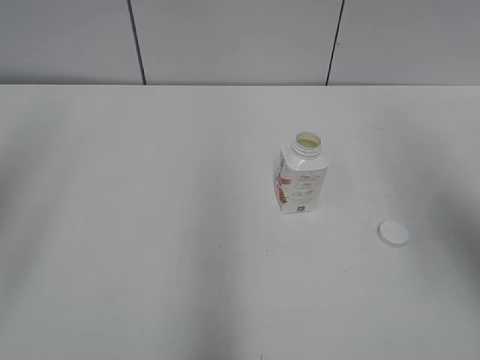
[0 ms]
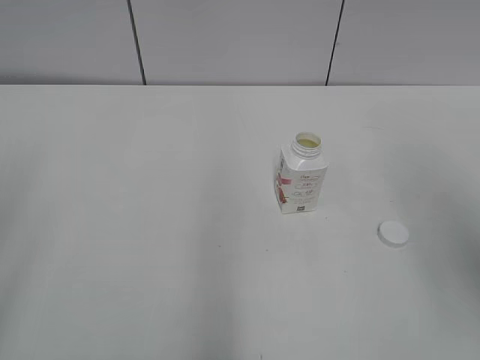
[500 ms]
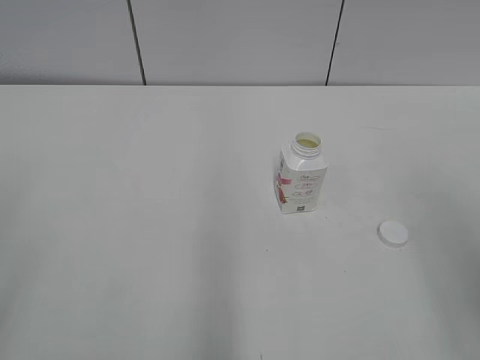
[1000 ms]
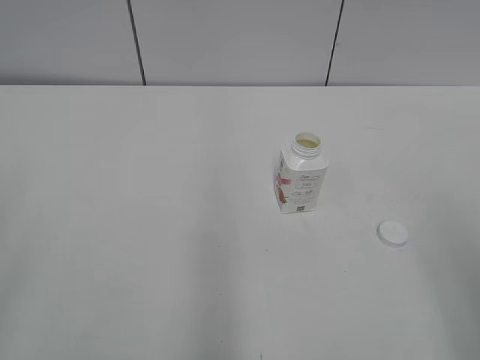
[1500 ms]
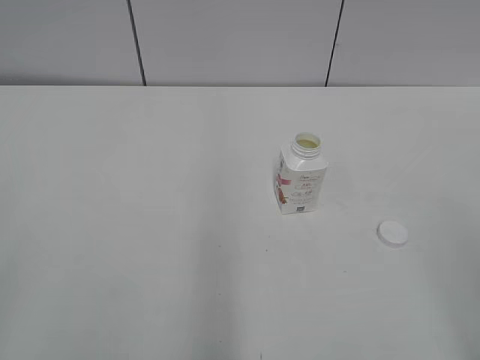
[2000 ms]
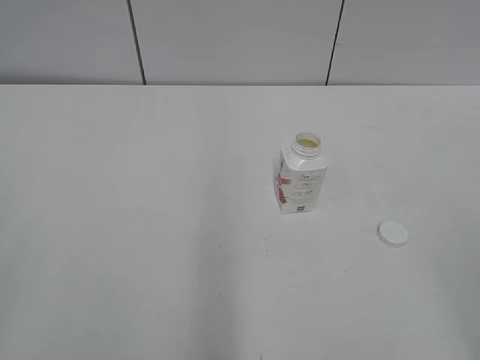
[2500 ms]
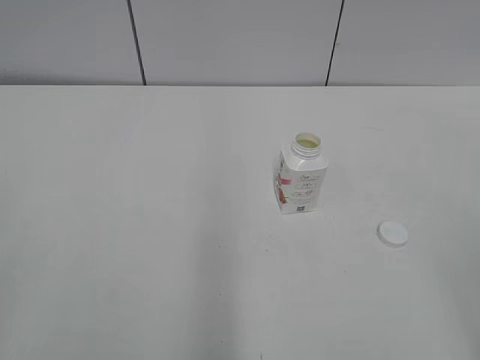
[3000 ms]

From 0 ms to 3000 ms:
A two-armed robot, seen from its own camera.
From 0 ms to 1500 ms: The right gripper travels backward and downward by approximately 15 cm.

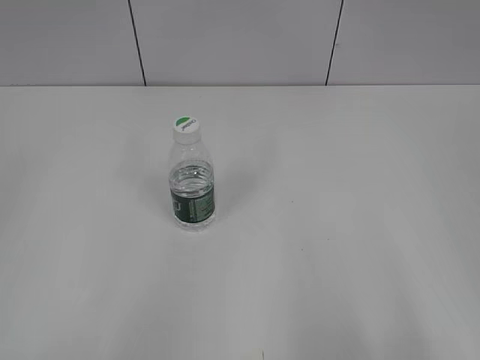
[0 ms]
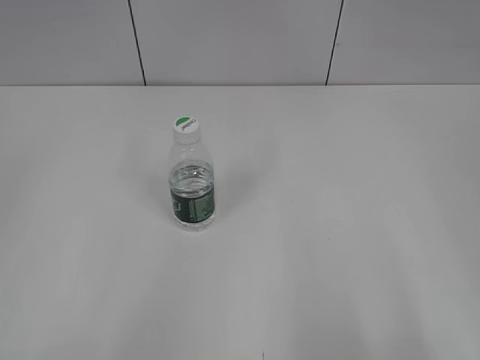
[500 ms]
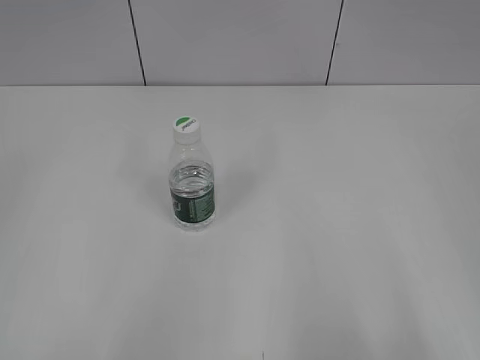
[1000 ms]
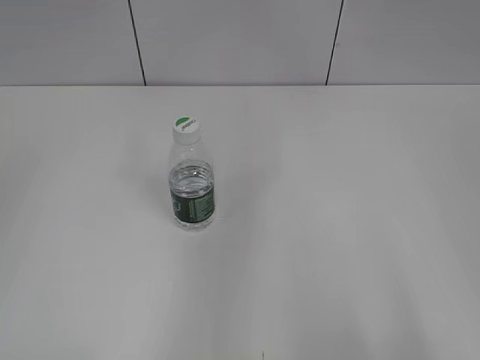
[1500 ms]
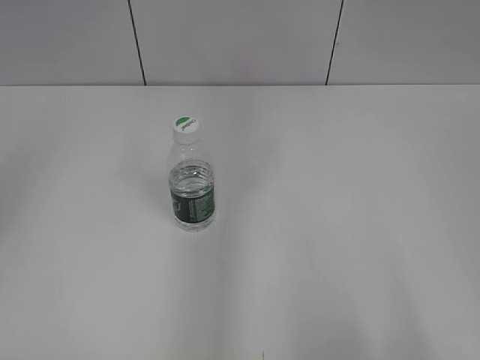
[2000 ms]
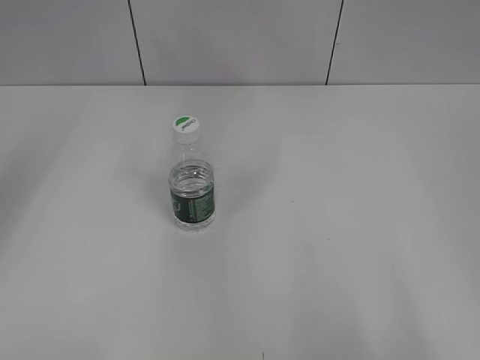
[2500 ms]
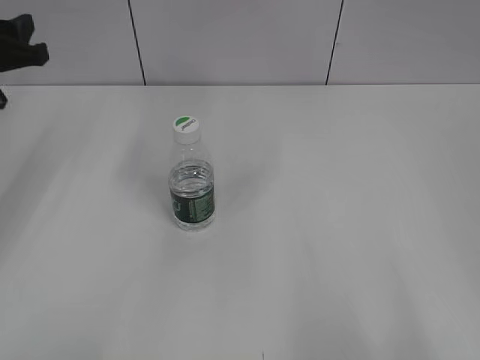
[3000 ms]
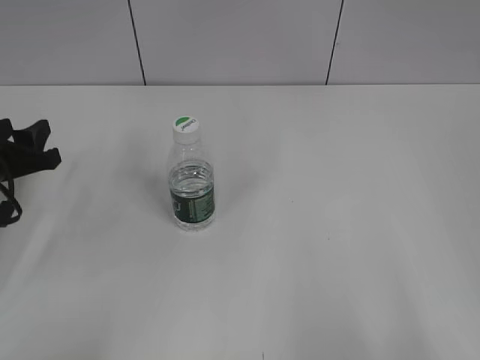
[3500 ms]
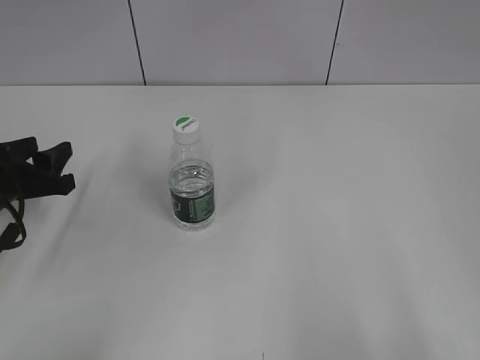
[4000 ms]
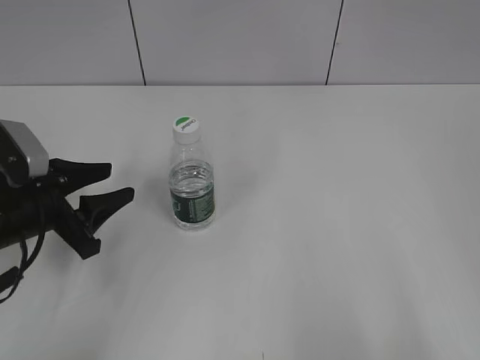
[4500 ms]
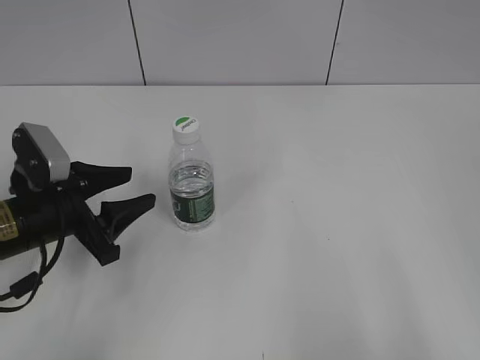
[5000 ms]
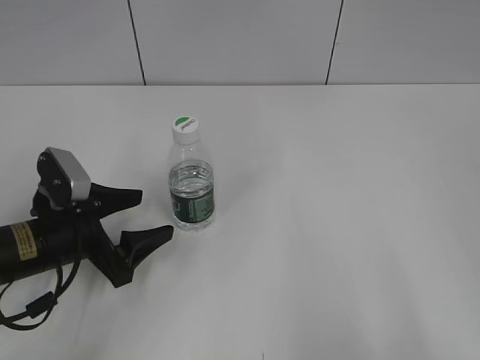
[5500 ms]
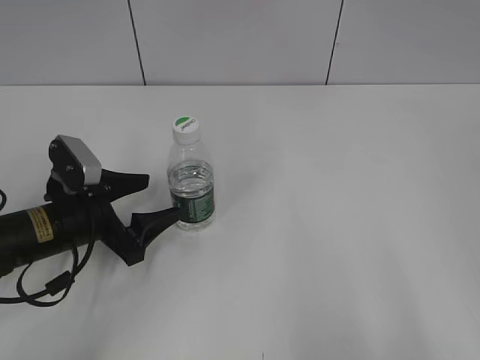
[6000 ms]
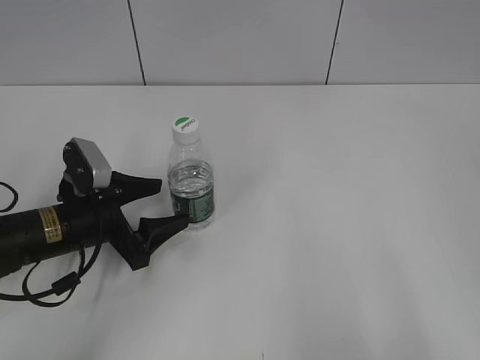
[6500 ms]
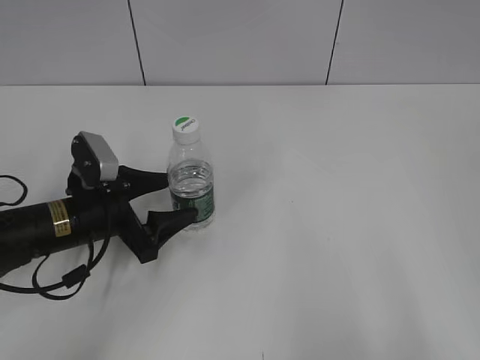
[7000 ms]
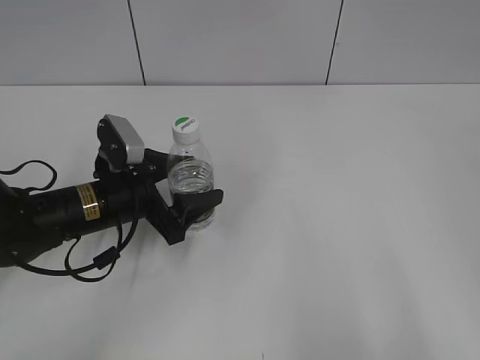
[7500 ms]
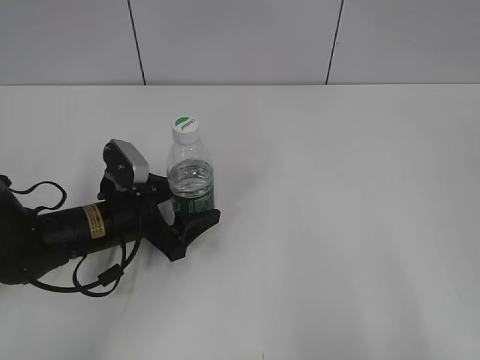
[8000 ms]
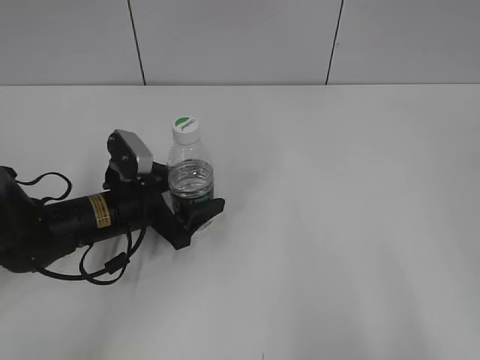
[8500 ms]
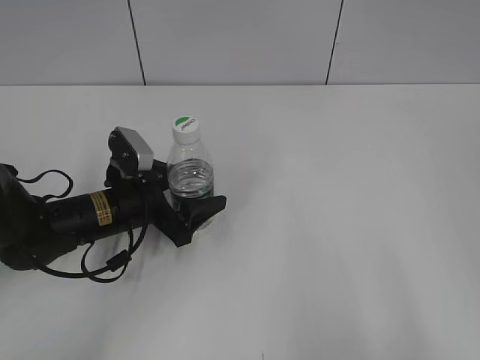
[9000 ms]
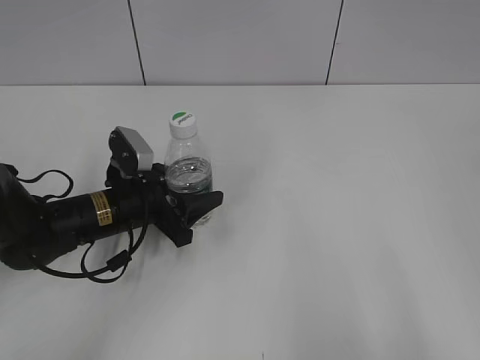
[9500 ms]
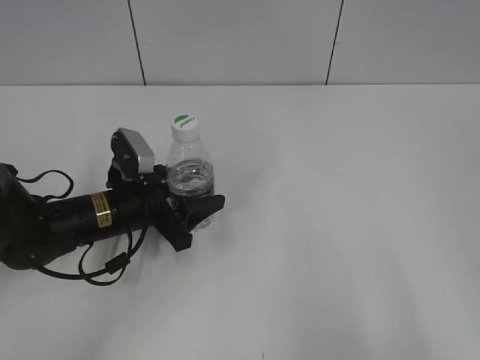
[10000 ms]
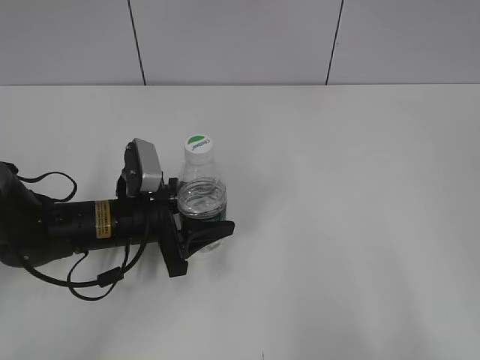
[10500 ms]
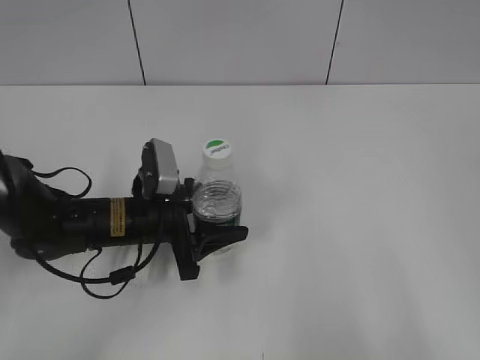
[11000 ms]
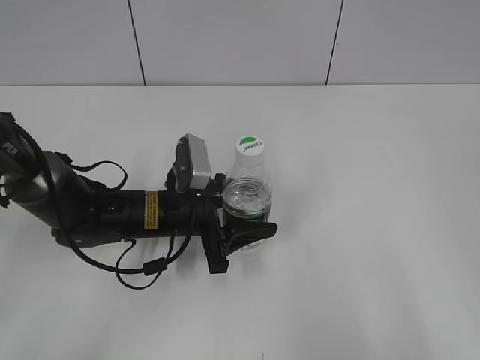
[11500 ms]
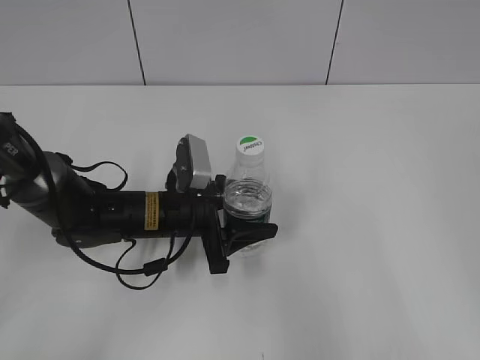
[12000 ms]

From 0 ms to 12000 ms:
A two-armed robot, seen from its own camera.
Step, from 0 ms to 9000 ms: Grasp the bottle and move it to the center of the table with the left gripper.
From 2000 ms to 4000 ms: The left gripper shifts approximately 30 cm downward.
From 4000 ms to 6000 ms: The left gripper is displaced to the right by roughly 10 cm, and opens up.
From 6000 ms to 8000 ms: The left gripper changes place by roughly 5 cm.
From 8000 ms to 10000 ms: The left gripper closes its fingers.
From 10000 ms to 12000 ms: The left gripper goes roughly 5 cm to the right.

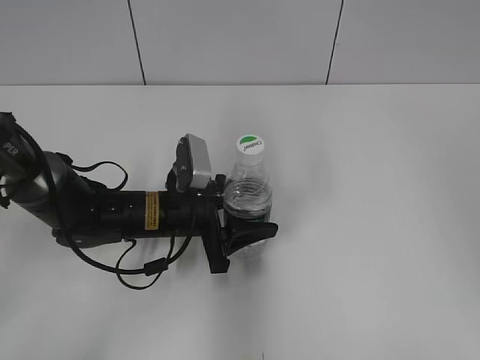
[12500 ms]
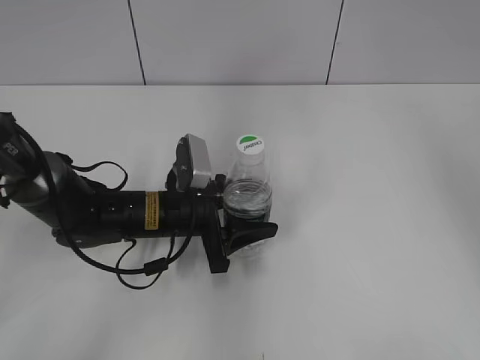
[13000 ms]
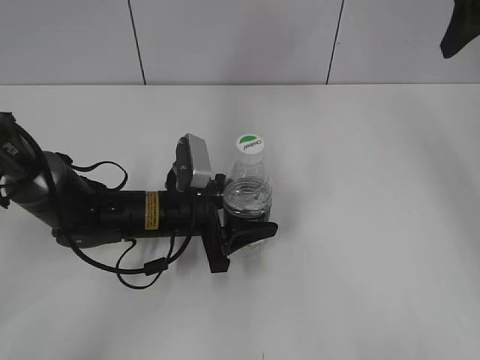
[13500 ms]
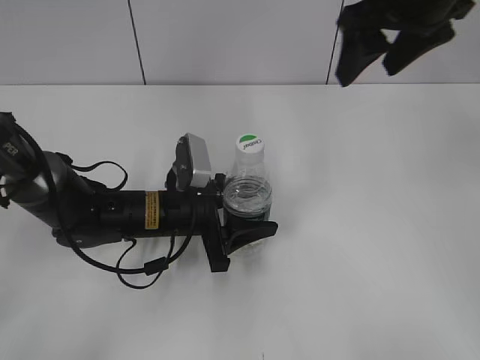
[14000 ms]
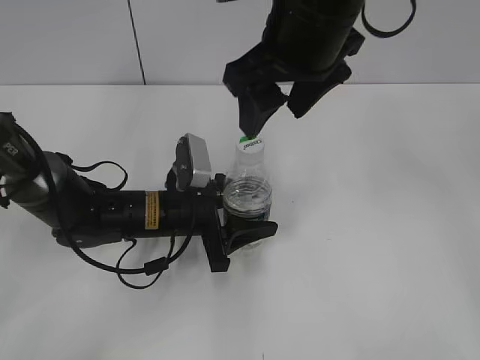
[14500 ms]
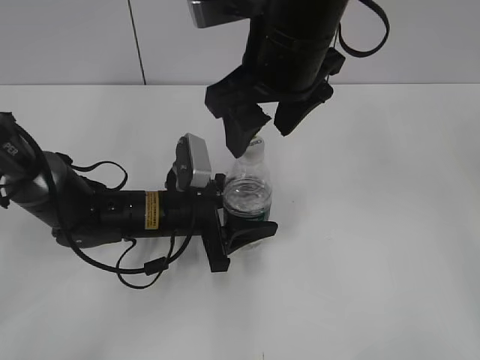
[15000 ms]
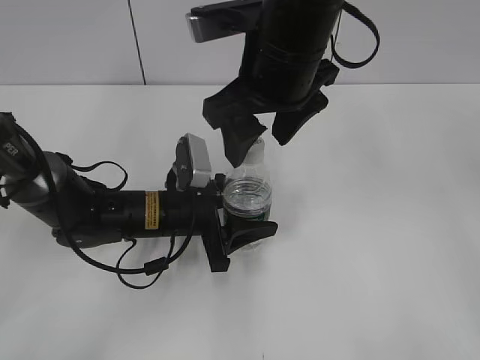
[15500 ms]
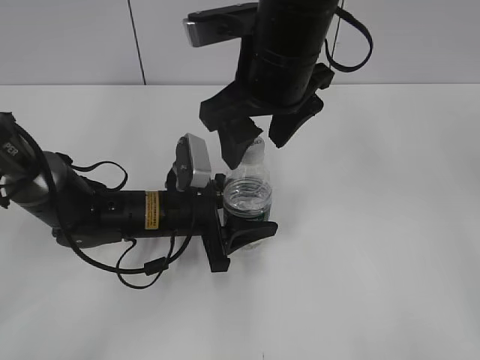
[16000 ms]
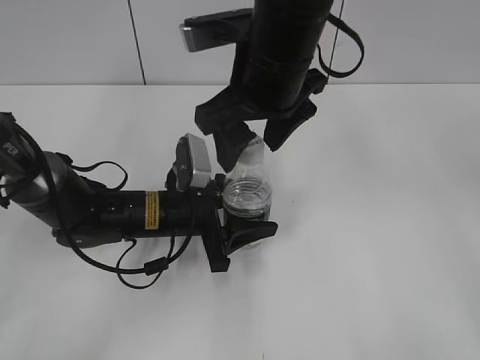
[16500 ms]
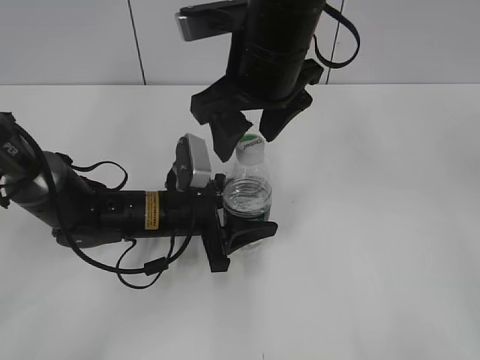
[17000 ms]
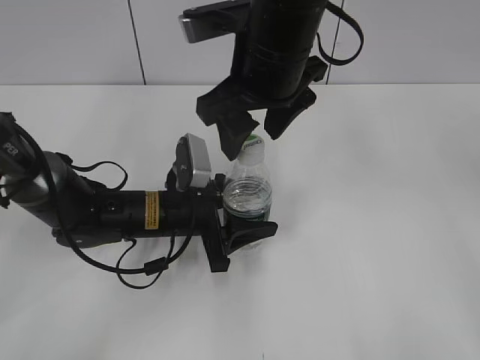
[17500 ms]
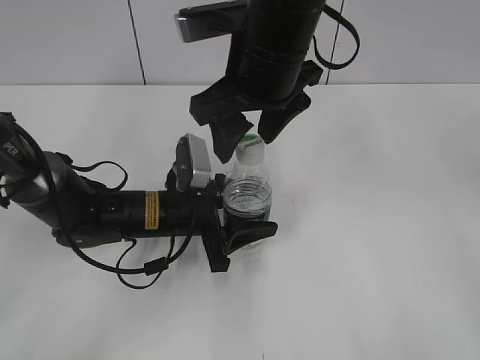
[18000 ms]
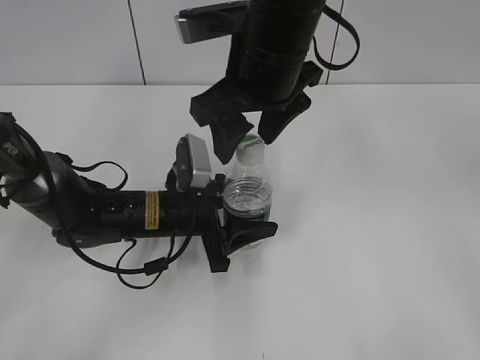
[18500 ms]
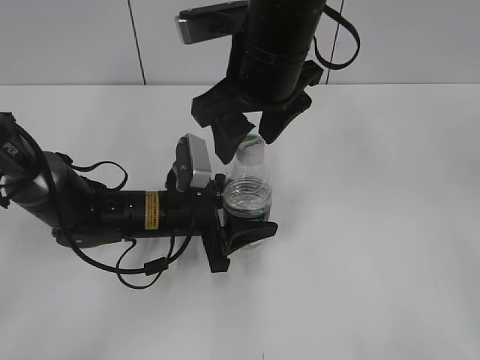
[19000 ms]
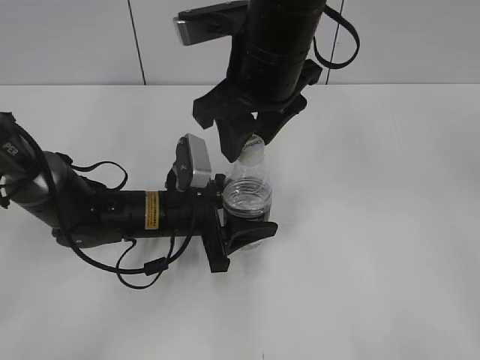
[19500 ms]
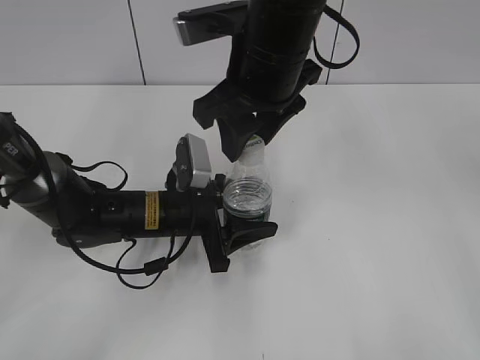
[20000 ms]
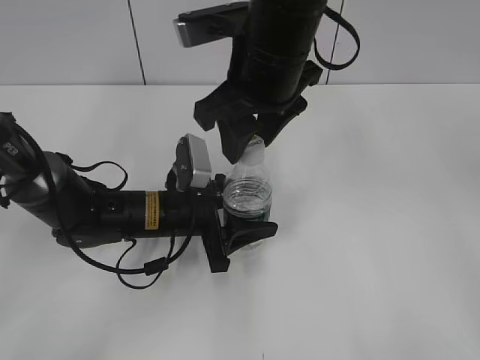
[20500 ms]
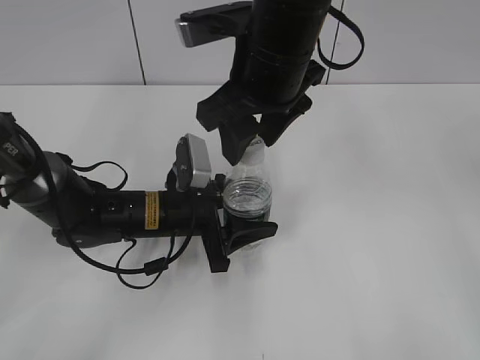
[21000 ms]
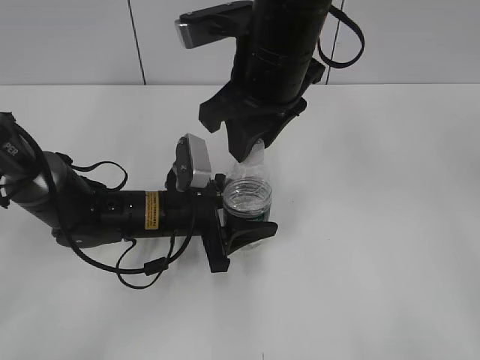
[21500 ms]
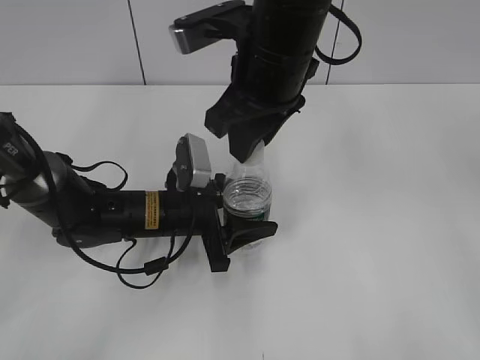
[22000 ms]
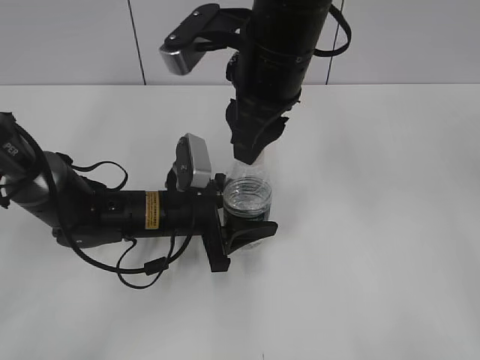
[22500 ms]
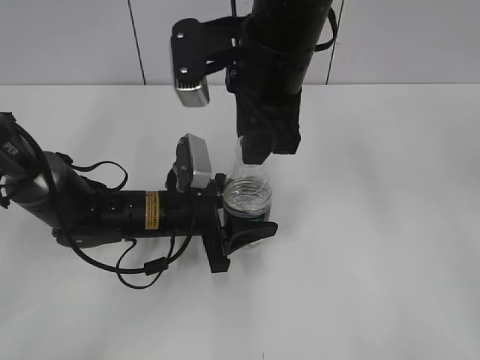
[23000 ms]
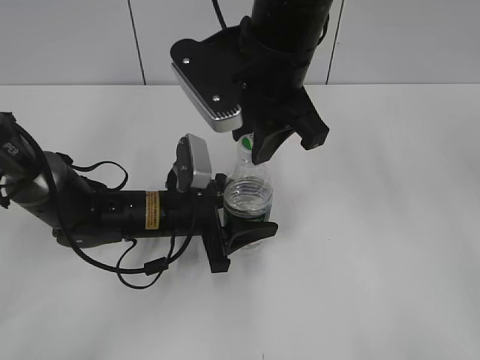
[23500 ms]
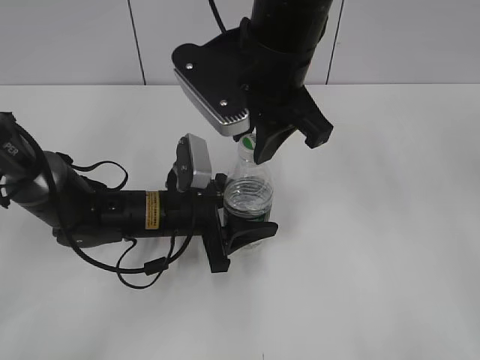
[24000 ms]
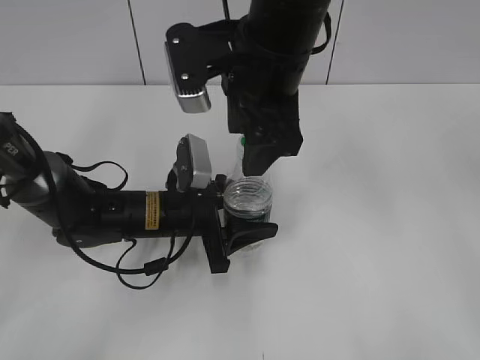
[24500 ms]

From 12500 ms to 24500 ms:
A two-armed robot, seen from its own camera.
From 12500 ms to 14500 ms: The right gripper travels to the left and forward by roughly 30 cm.
From 14500 ms to 16500 ms: There are only small adjustments of the grippers.
From 16500 ms to 18500 ms: Both grippers stay put.
From 18500 ms to 20500 ms: The right gripper closes.
From 20500 ms to 22500 ms: The right gripper closes.
From 22500 ms to 24500 ms: The right gripper opens up.
